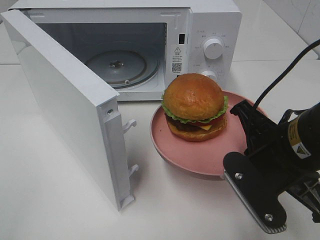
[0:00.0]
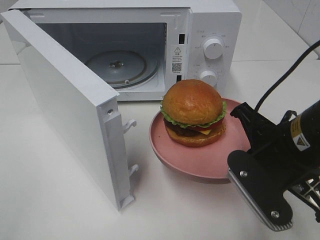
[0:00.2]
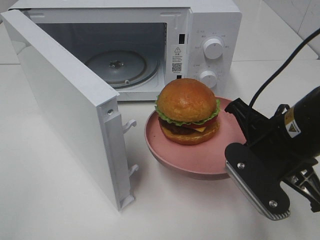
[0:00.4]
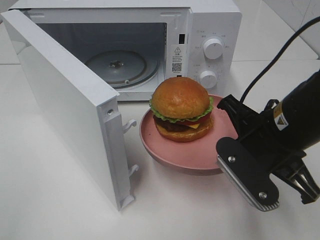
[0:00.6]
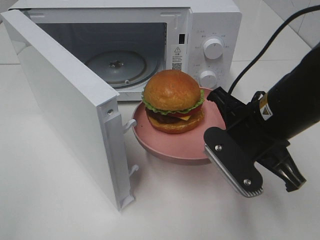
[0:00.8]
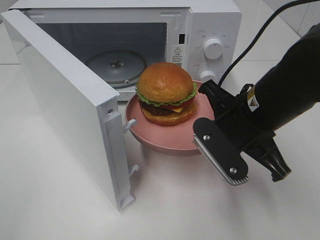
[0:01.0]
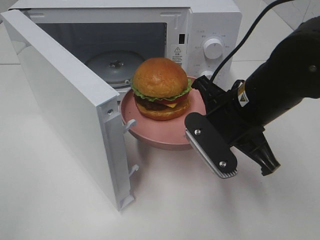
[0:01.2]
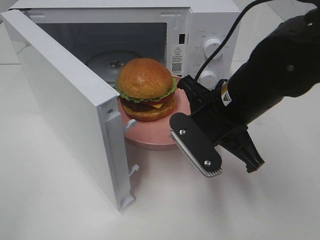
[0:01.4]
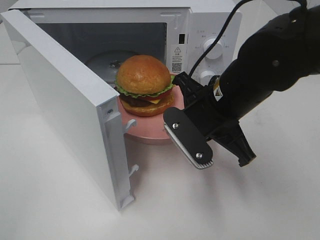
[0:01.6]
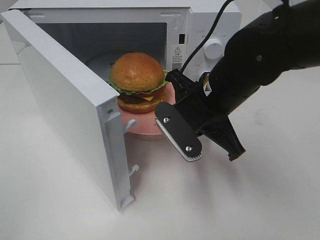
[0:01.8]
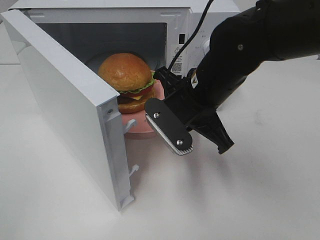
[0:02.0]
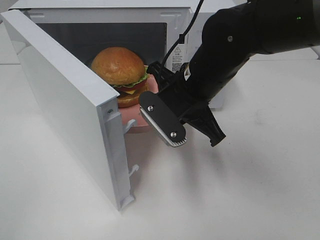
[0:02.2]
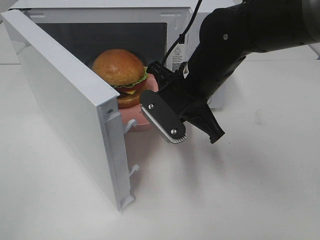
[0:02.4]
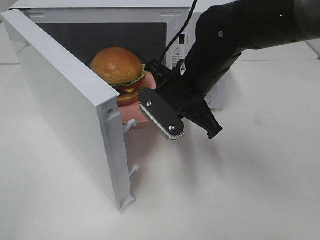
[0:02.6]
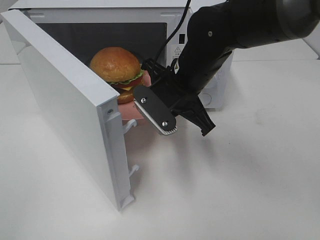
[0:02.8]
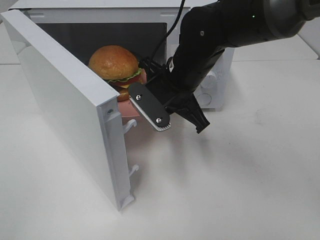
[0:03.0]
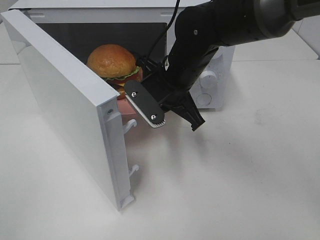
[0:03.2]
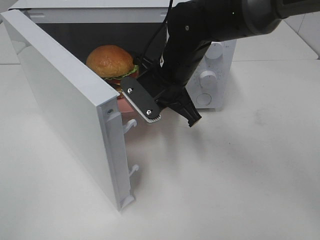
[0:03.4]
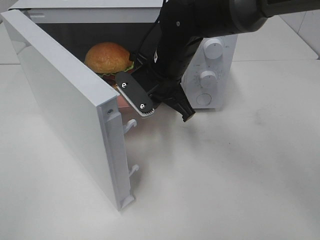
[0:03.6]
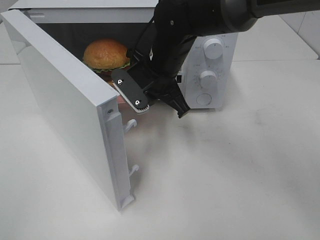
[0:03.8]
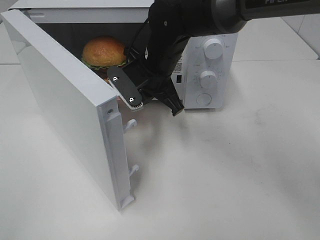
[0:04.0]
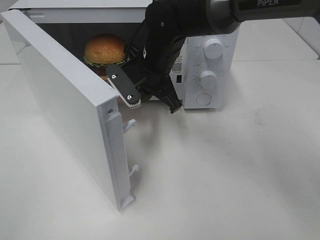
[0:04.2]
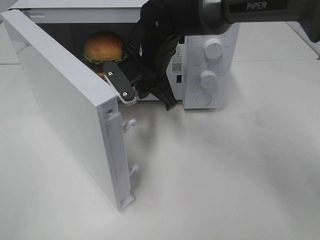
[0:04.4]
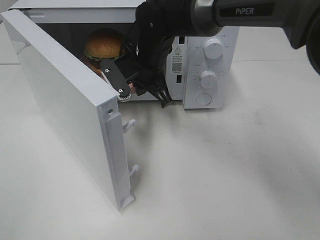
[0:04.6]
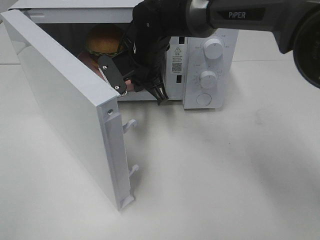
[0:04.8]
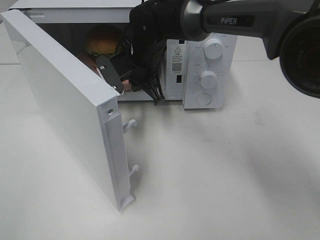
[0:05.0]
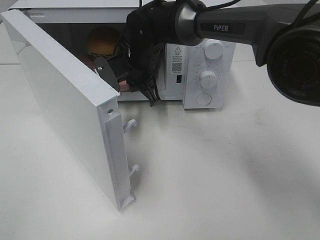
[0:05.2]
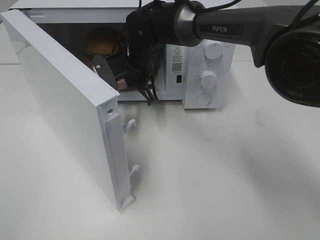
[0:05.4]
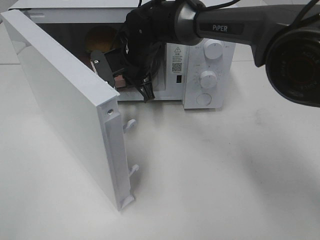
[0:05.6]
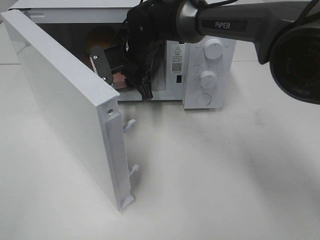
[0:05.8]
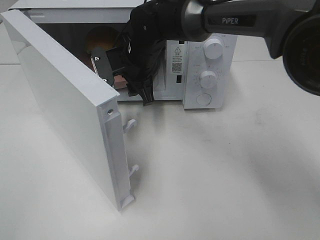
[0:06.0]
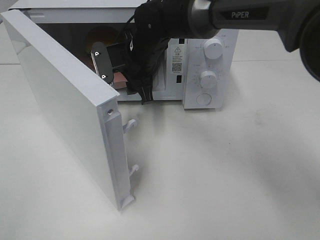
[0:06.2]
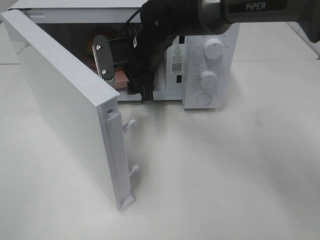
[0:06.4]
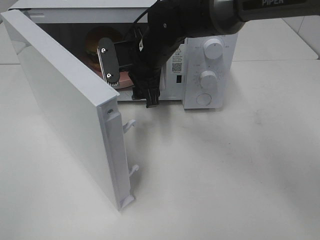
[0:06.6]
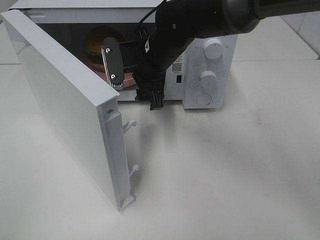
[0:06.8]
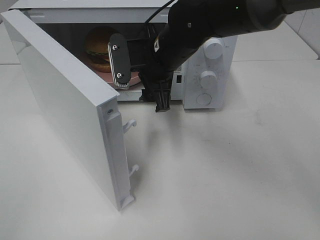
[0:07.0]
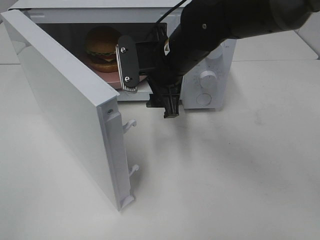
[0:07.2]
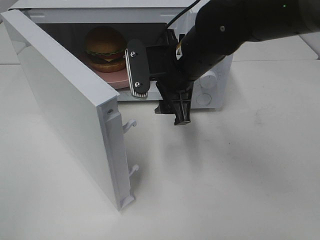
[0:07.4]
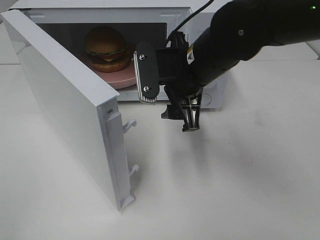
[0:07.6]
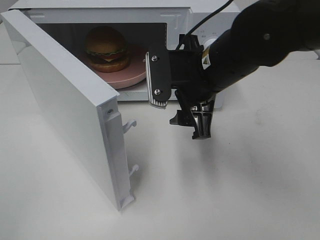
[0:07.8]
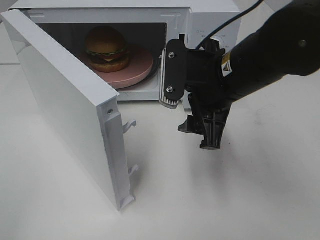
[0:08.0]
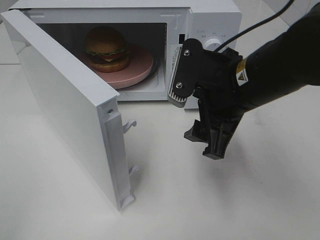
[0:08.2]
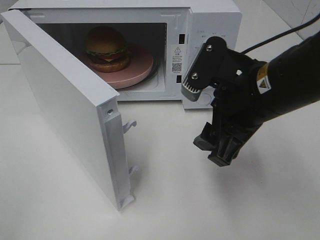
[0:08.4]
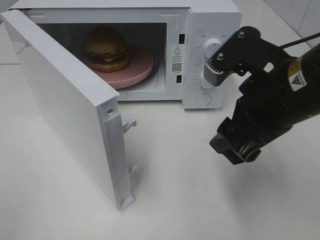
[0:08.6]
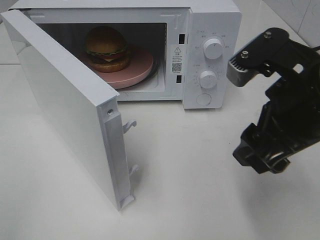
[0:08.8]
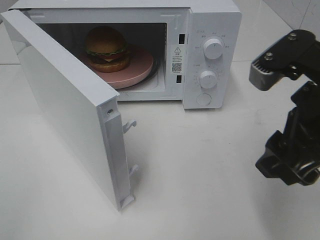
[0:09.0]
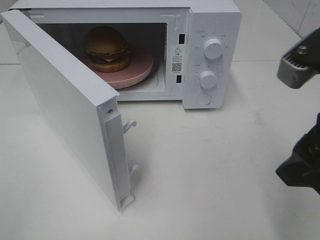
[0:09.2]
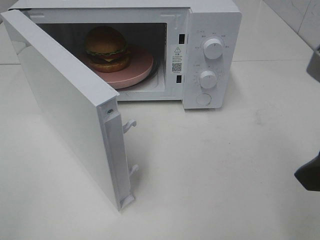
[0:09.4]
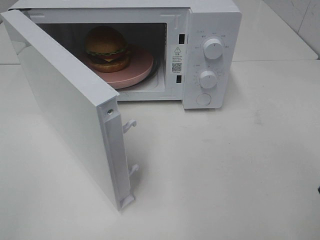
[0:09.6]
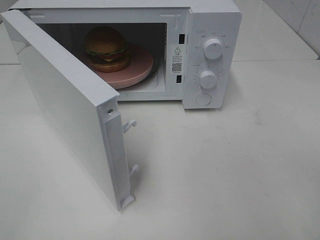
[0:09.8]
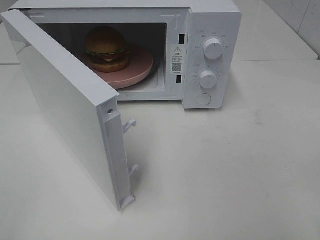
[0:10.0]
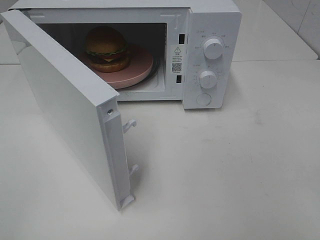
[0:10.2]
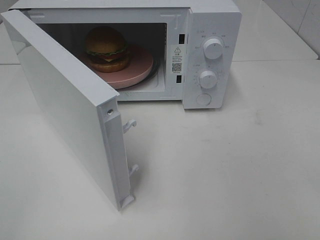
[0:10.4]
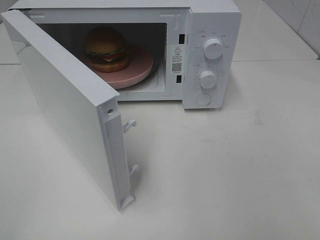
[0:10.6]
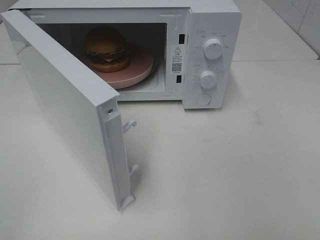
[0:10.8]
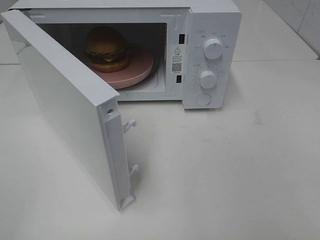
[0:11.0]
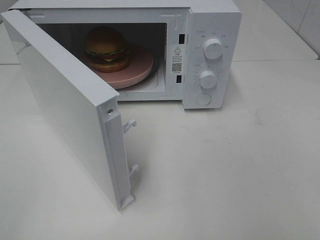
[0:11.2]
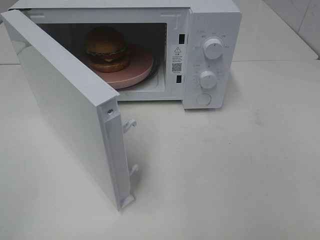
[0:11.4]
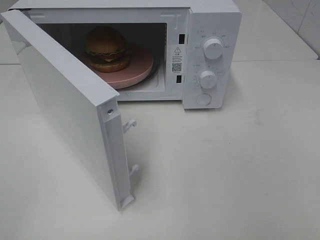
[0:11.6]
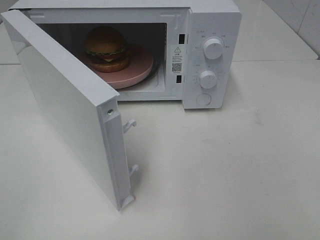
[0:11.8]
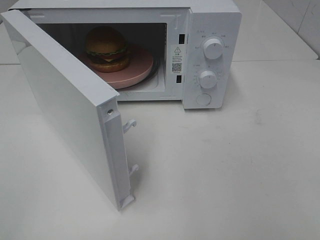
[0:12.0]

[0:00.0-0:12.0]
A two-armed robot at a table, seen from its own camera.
Task of the whole recording: Heat the burger.
Step, 0:00.0 to 0:05.6: Right hand: place the plate in the microwave.
0:00.0 to 0:01.6: The right gripper moves forward and to the left, some 10 cm.
0:01.6 to 0:03.0: The right gripper travels forward by about 5 cm.
0:03.0 to 0:04.4: The right gripper goes approximately 5 cm forward.
0:04.4 to 0:06.0: The right gripper opens its fingers.
0:06.0 to 0:07.6: The right gripper moves backward and to the right, roughly 15 cm.
0:07.6 to 0:09.0: The right gripper goes about 20 cm backward, to the right and upward.
0:09.0 to 0:10.4: The right gripper shifts about 15 cm backward and to the right.

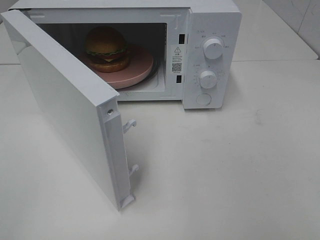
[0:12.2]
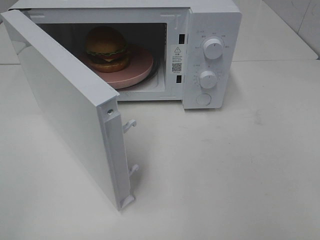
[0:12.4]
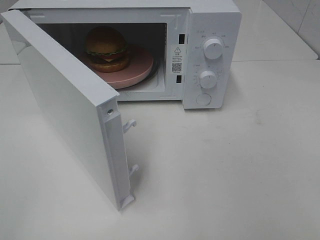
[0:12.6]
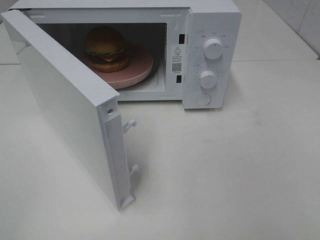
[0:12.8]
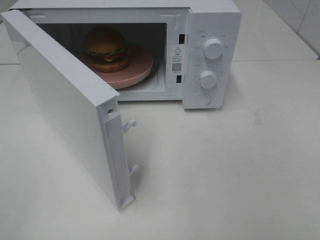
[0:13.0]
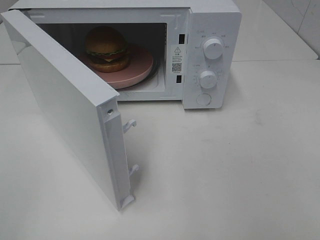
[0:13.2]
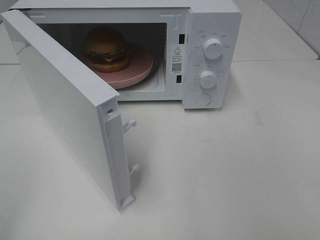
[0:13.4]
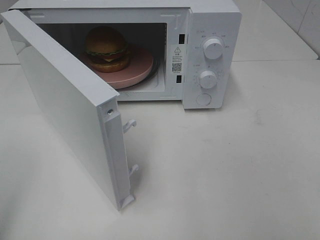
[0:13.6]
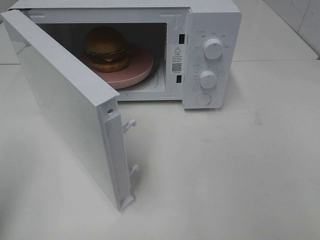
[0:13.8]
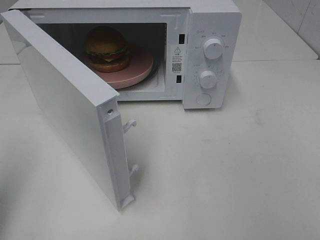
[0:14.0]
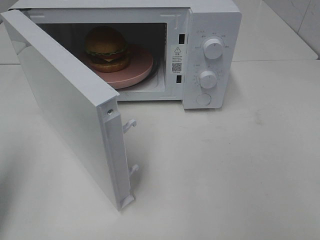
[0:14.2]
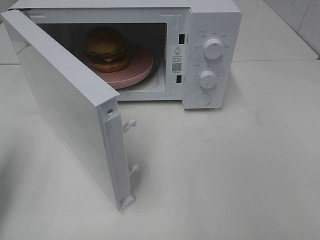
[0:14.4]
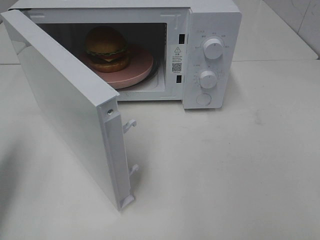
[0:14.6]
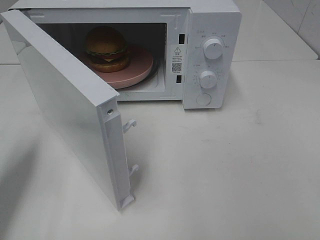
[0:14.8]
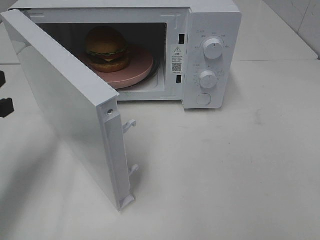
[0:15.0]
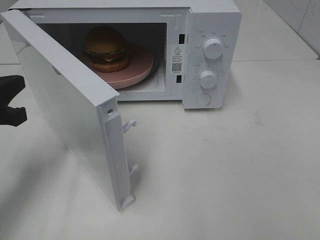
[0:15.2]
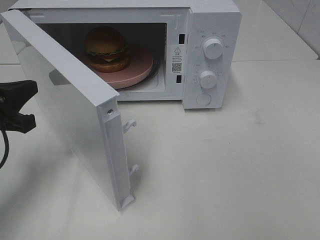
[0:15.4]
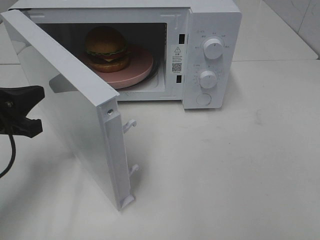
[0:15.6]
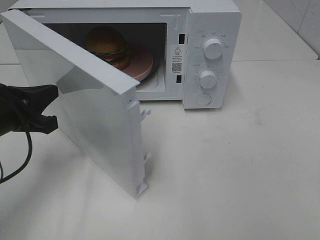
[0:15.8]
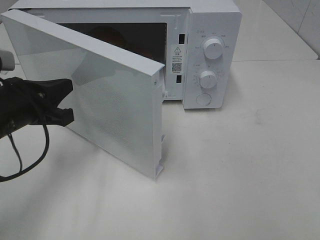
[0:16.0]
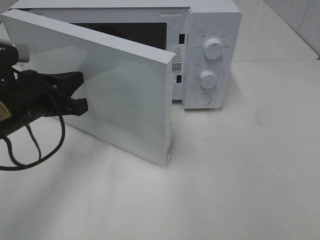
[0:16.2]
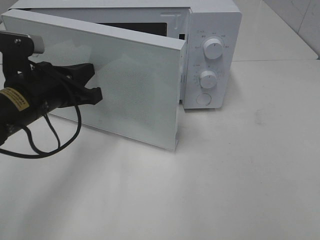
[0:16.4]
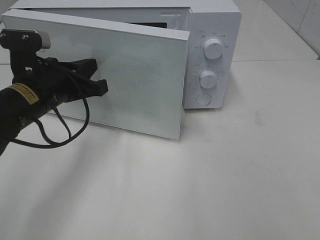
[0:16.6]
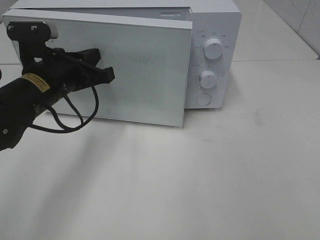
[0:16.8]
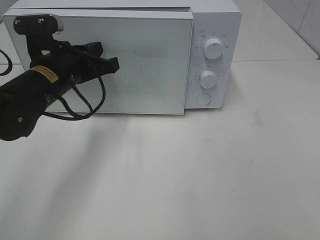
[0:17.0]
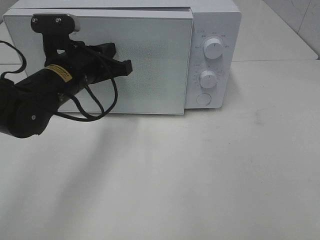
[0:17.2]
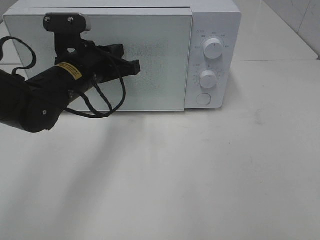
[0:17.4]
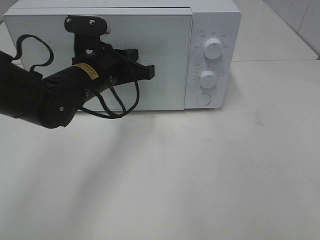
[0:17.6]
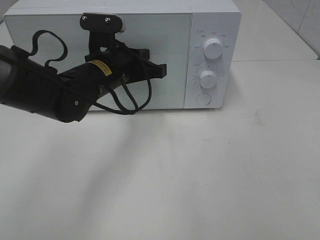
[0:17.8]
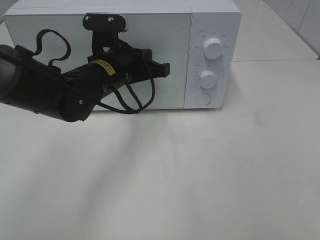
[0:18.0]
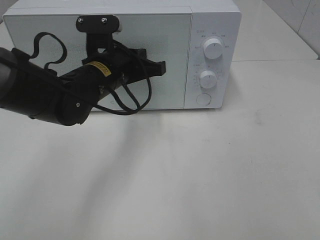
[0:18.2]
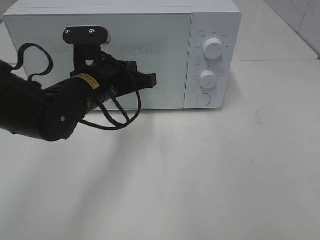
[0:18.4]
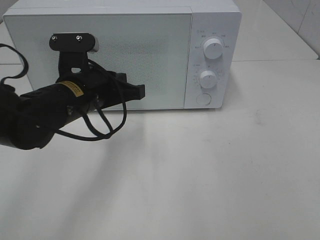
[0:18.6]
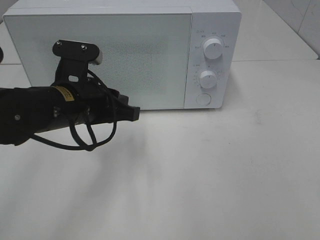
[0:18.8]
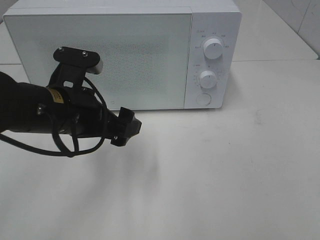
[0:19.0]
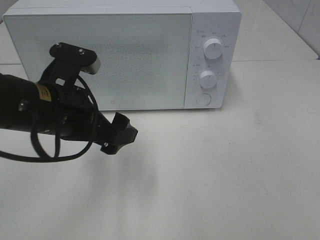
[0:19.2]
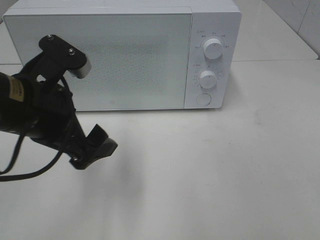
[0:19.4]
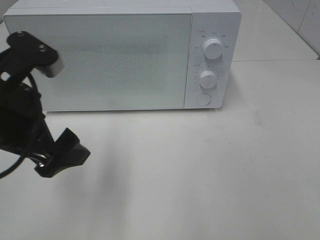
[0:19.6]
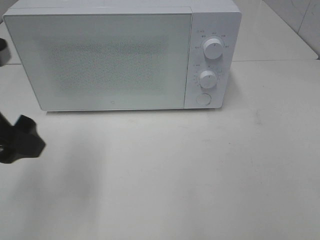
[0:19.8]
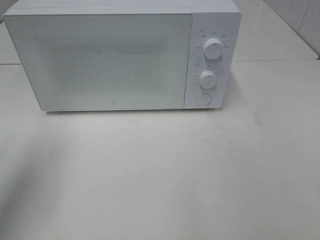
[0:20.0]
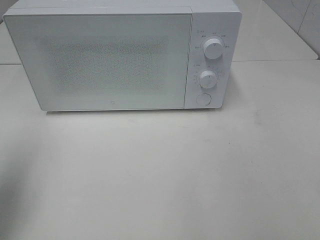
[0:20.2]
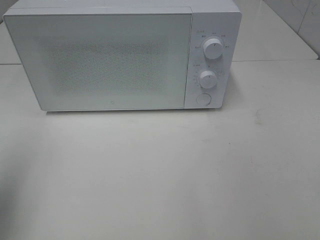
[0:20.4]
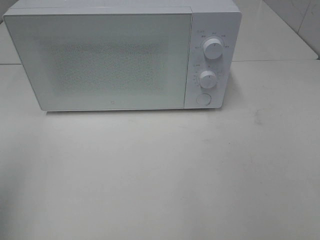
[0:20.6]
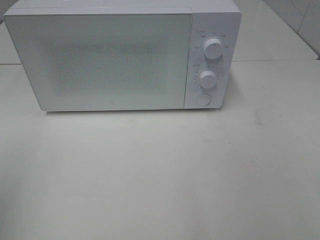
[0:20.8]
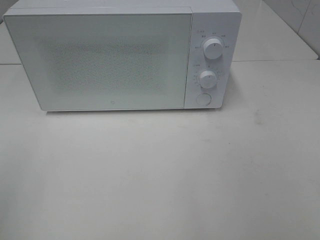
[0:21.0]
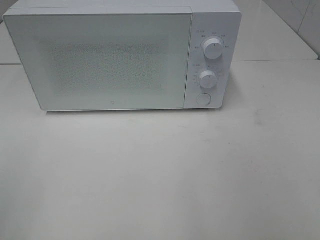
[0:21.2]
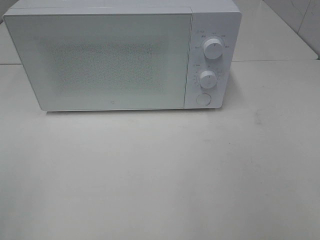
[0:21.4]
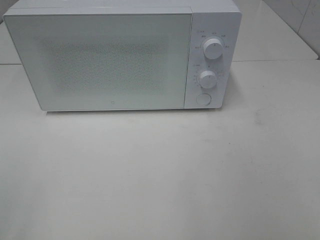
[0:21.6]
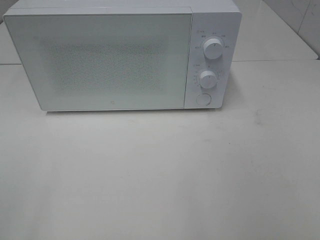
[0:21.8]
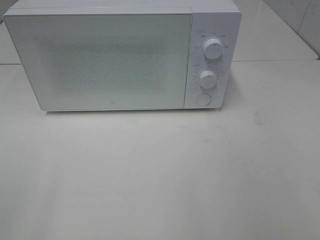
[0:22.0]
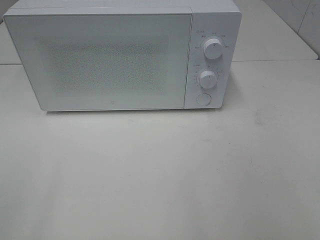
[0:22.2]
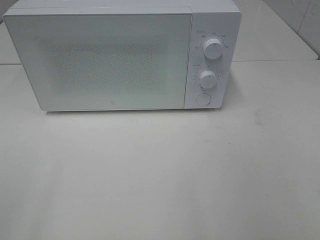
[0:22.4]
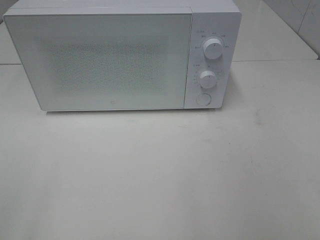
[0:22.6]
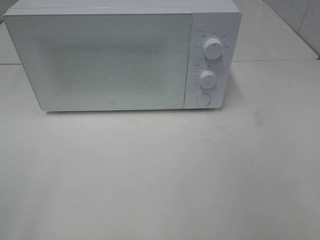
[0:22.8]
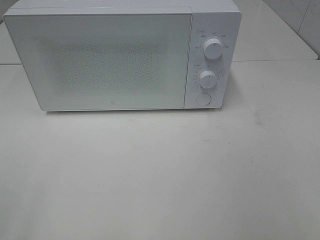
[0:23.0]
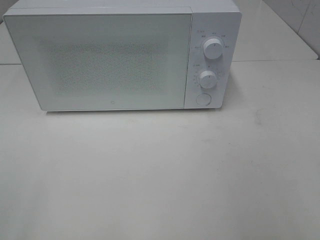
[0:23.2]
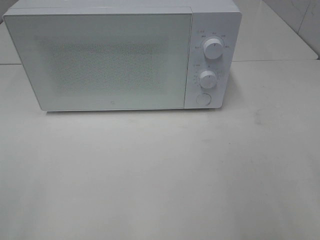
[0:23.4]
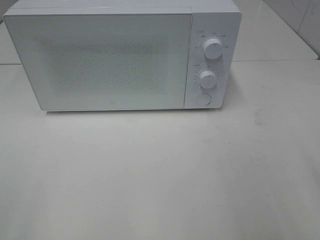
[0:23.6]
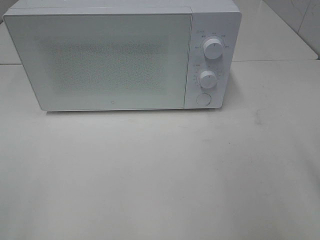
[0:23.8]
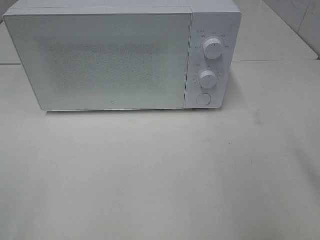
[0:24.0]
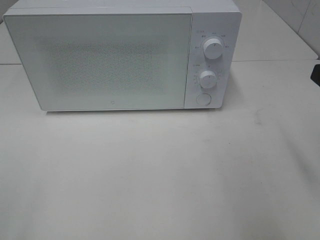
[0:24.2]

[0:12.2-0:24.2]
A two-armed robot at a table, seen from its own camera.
Task of the whole recording: Heat the burger.
Step, 0:12.2 to 0:18.4: Left hand: close the microwave door.
0:13.8 to 0:15.2: The left gripper shifts about 15 cm forward and downward.
0:15.2 to 0:16.6: The left gripper heads to the right and forward, covering some 10 cm.
0:16.6 to 0:18.2: The left gripper heads to the right, covering roughly 10 cm.
0:18.2 to 0:19.8: The left gripper shifts approximately 20 cm to the left, backward and upward, and opens up.
0:19.8 to 0:21.2: The left gripper shifts approximately 20 cm backward and to the left.
